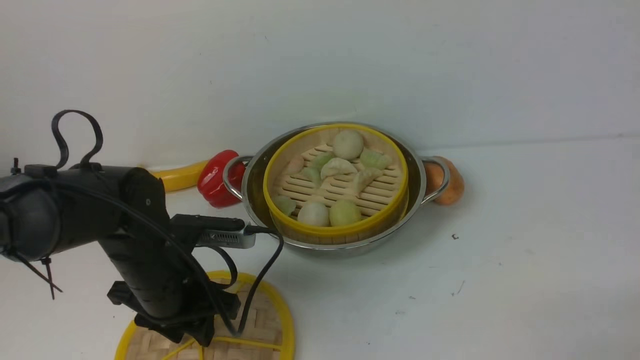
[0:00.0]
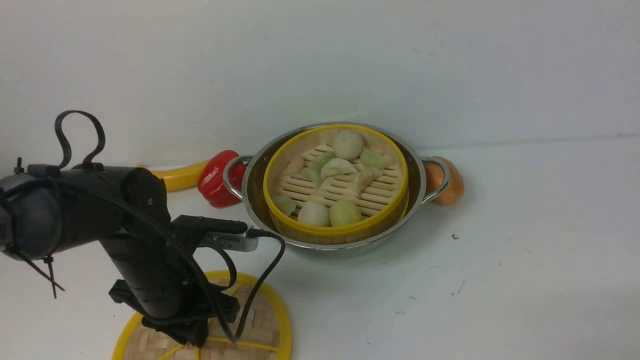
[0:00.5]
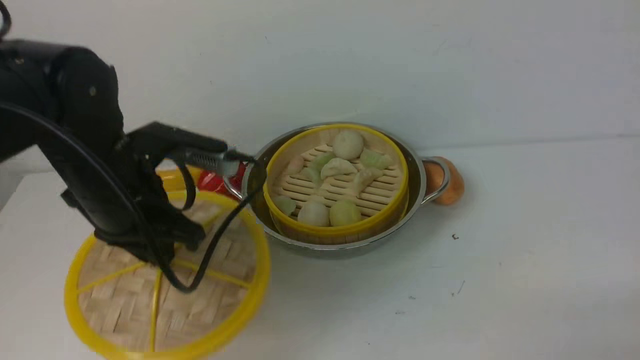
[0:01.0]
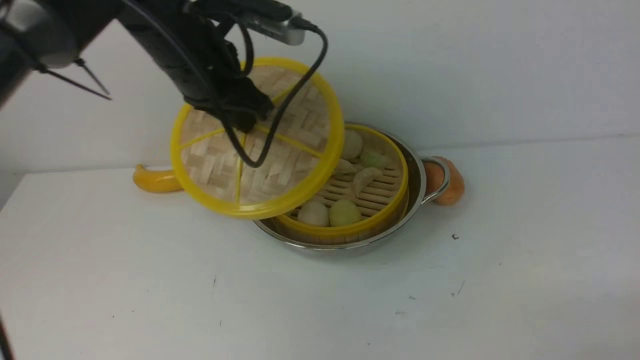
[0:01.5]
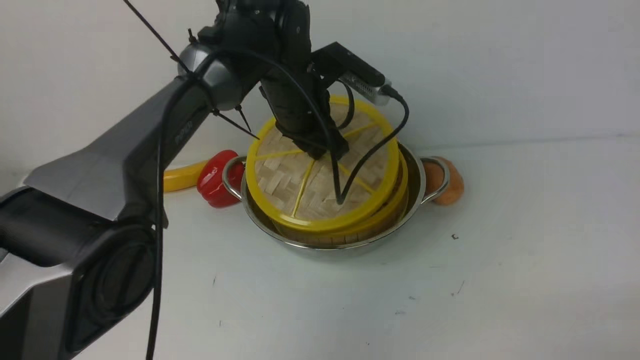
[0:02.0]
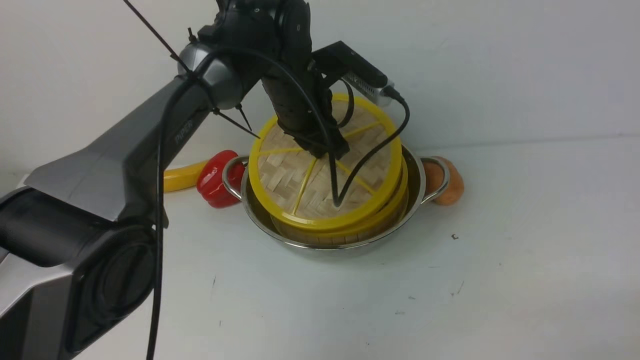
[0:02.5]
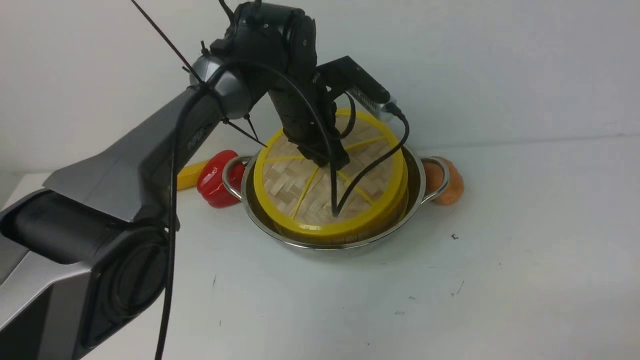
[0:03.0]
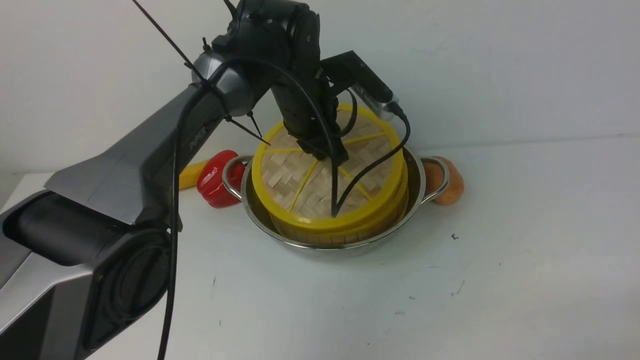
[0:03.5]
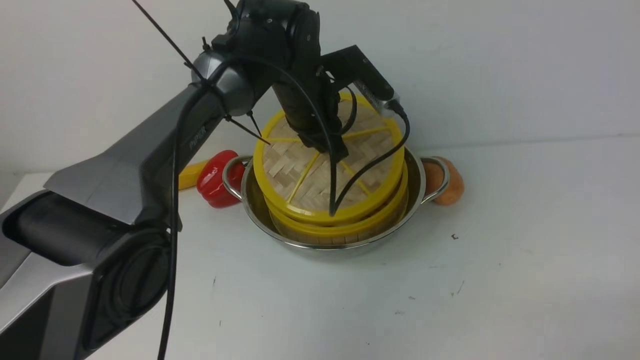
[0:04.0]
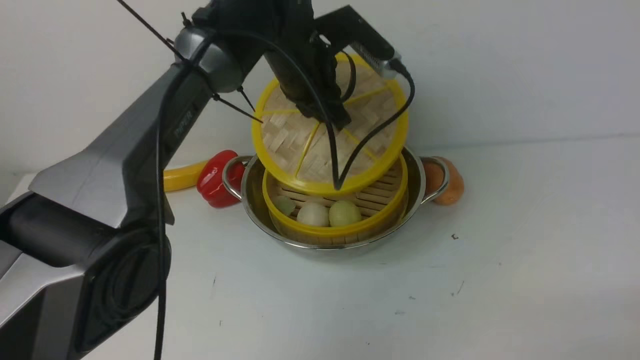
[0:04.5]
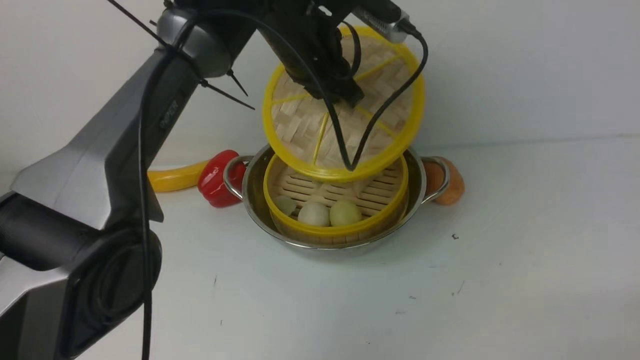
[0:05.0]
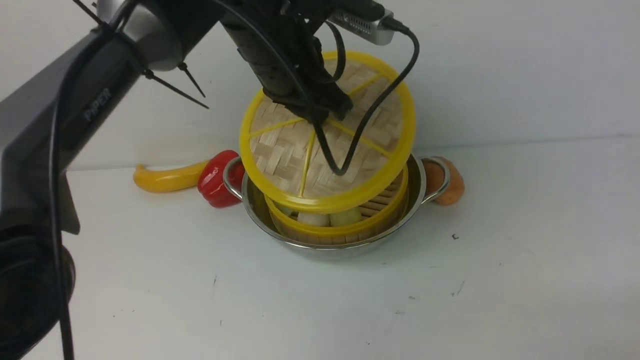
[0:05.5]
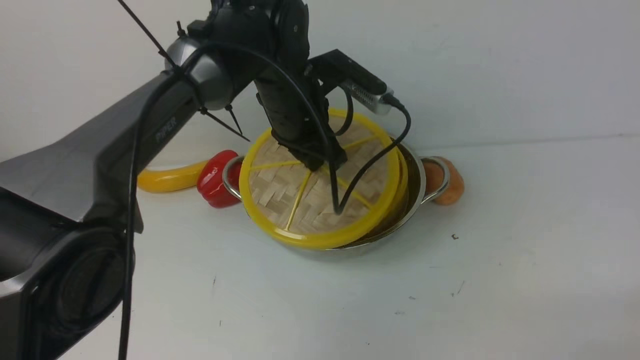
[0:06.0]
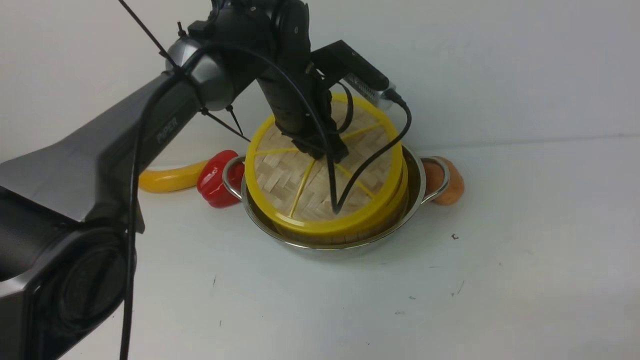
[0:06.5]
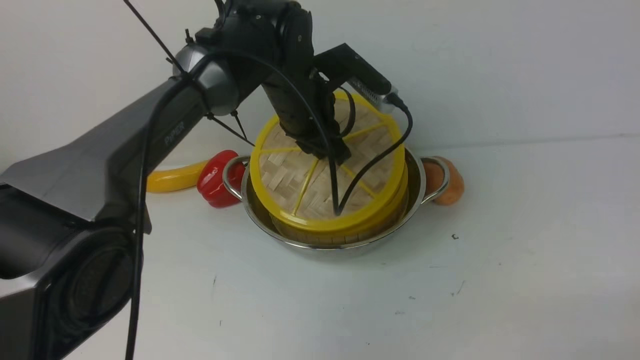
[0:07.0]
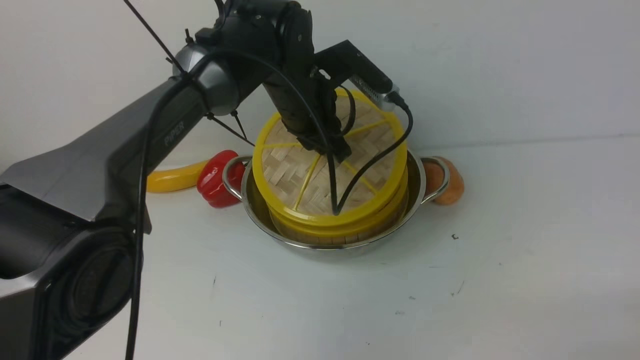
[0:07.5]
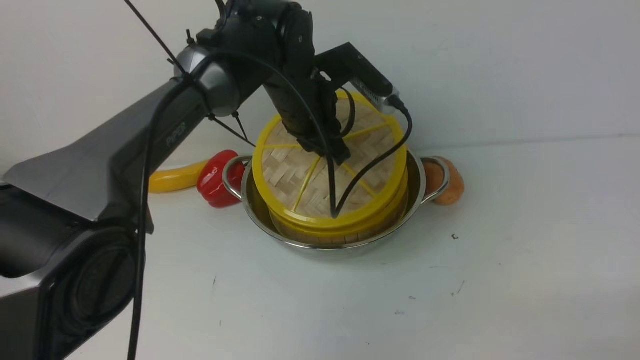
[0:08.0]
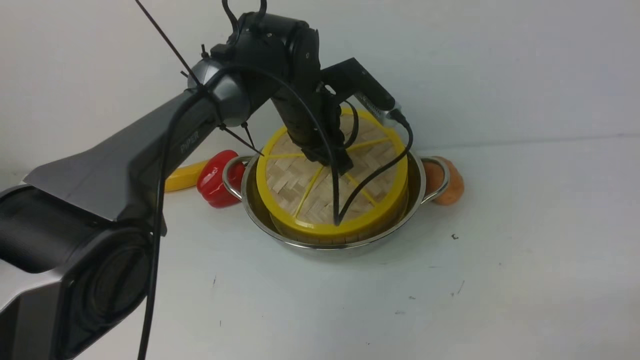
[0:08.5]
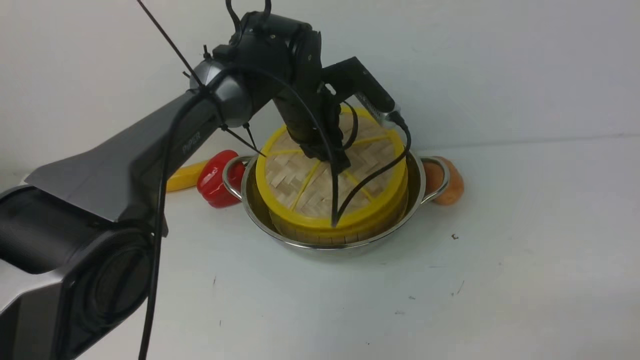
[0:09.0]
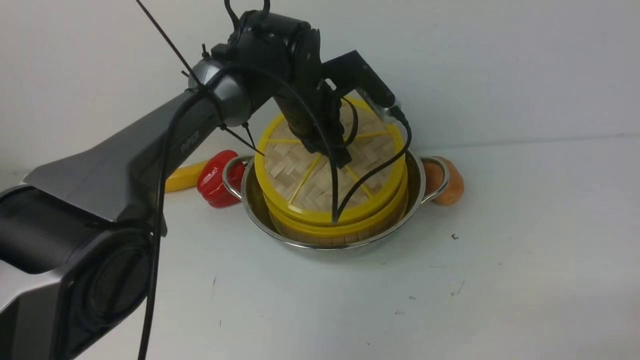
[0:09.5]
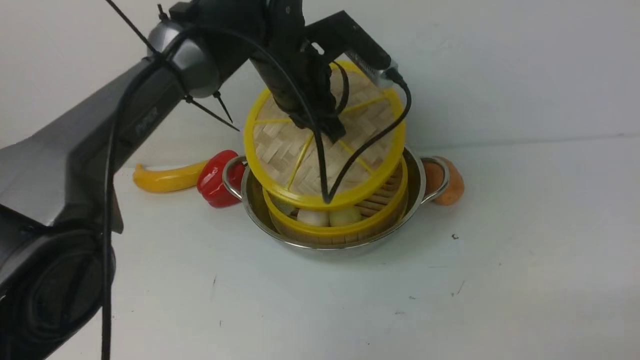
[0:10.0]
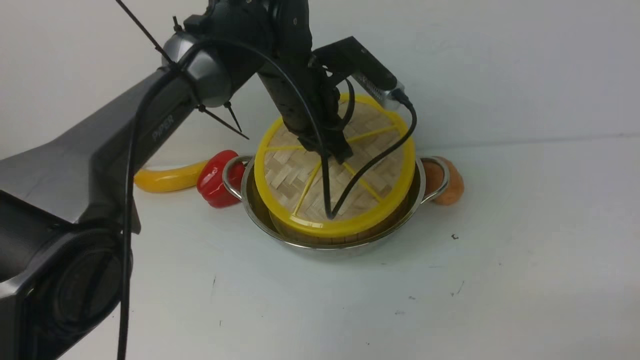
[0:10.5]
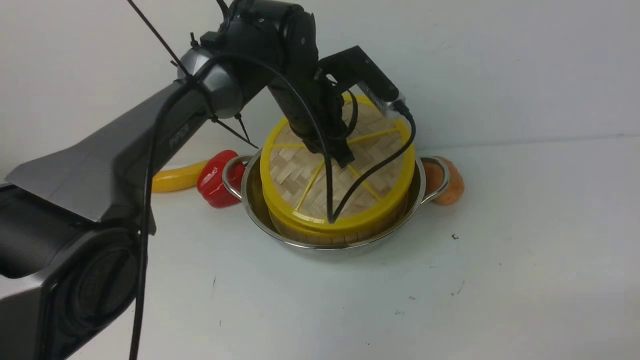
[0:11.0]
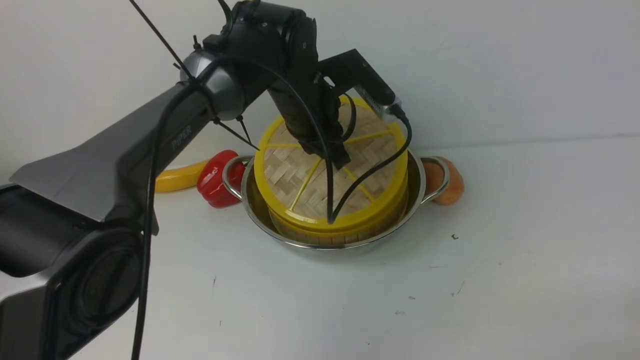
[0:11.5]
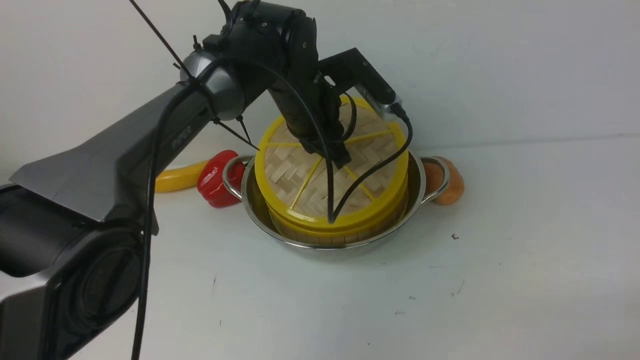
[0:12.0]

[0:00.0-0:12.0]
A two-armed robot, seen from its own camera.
Task of the whole recording: place the steamer in the pot on the white table, and put the lid on the steamer.
0:00.0 to 0:02.0: The left gripper goes some 25 cm forward, to the right and upward, and closes.
0:02.0 to 0:04.0: The grippers stay close to where they were, moving slightly.
0:04.0 to 0:06.0: The left gripper travels upward and back again, some 10 cm each way.
0:06.0 to 0:08.0: The grippers stay close to where they were, moving slightly.

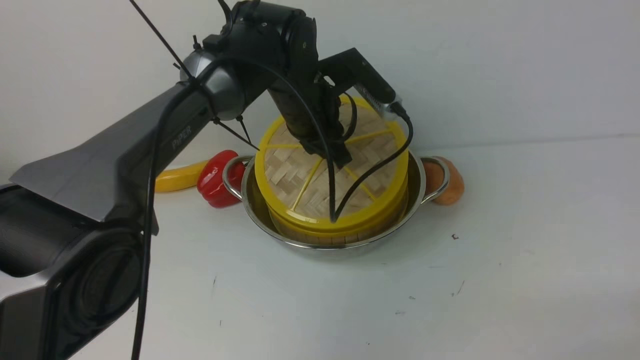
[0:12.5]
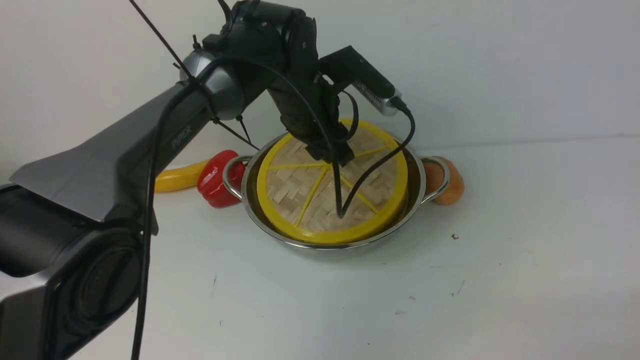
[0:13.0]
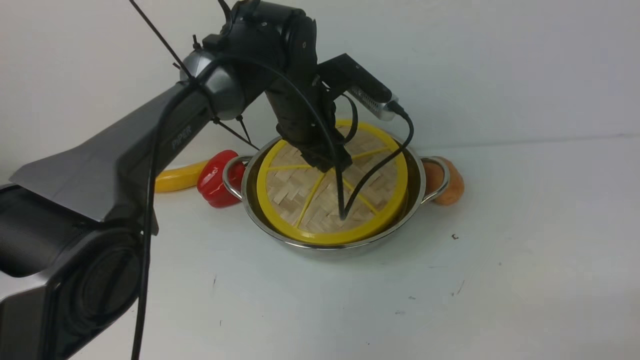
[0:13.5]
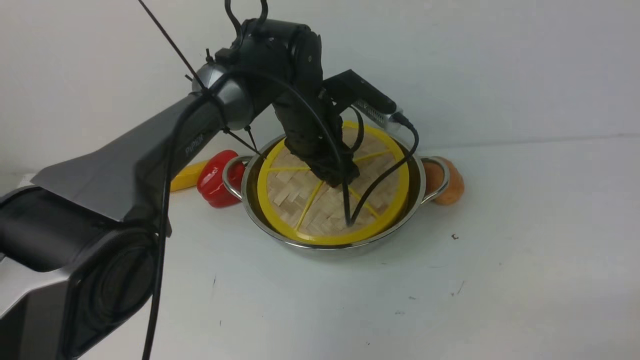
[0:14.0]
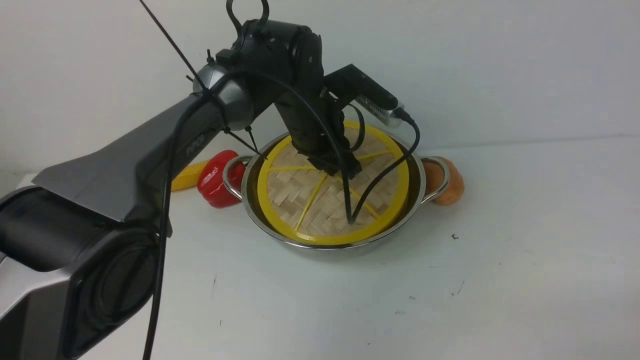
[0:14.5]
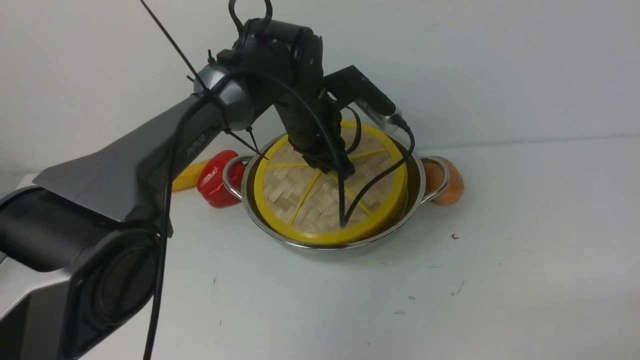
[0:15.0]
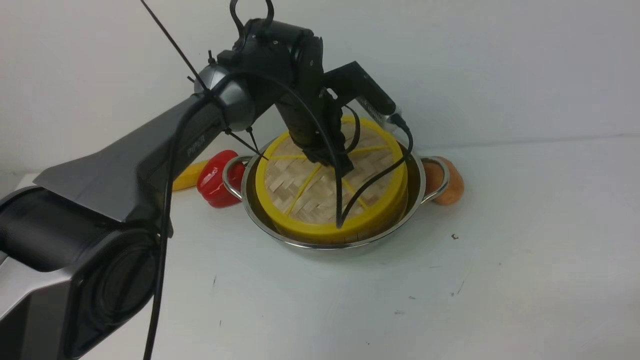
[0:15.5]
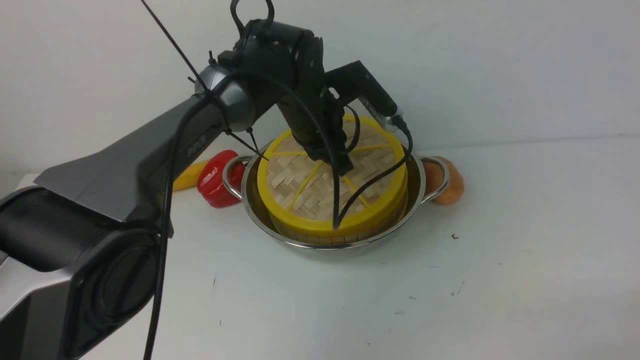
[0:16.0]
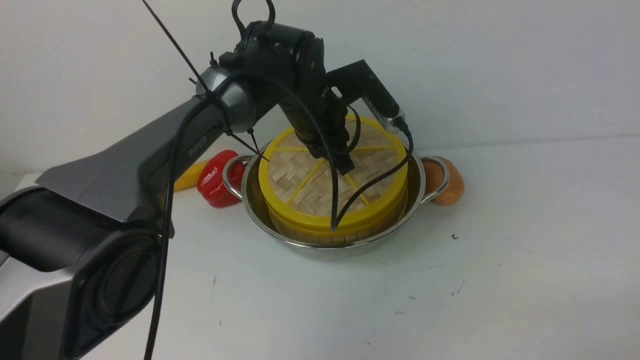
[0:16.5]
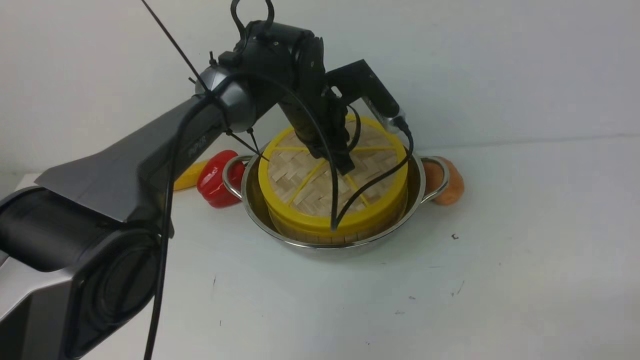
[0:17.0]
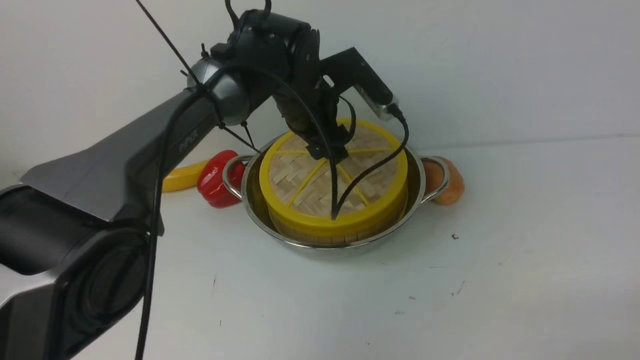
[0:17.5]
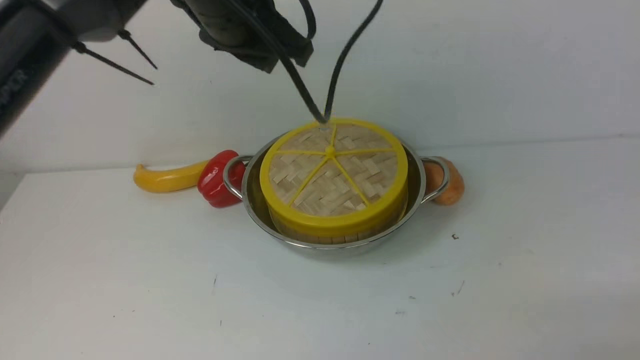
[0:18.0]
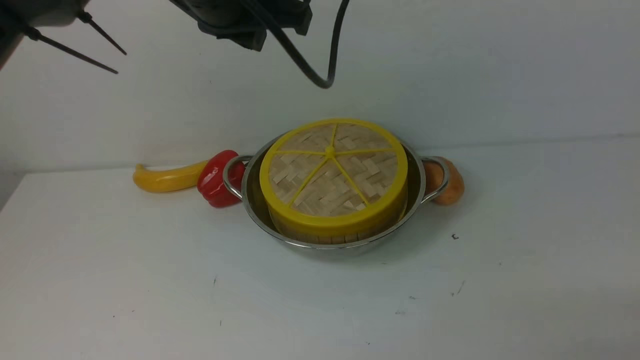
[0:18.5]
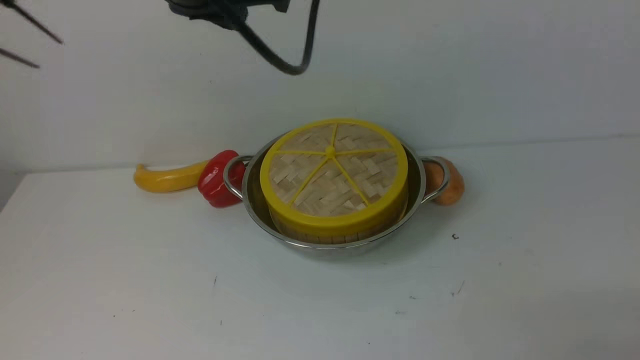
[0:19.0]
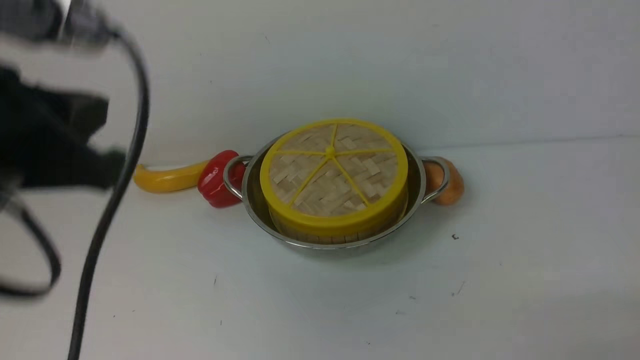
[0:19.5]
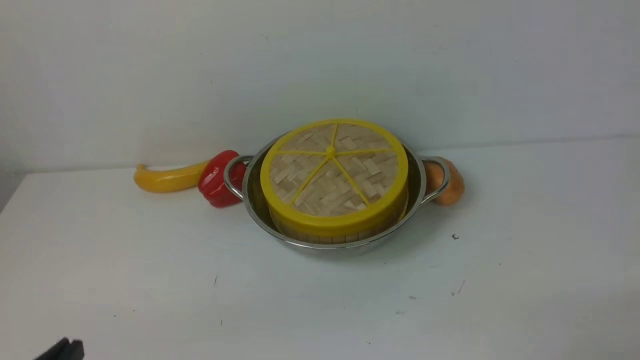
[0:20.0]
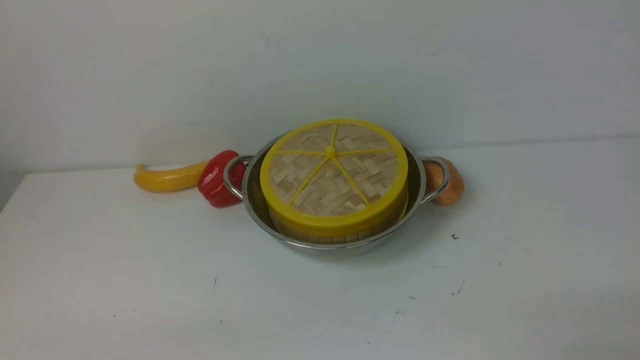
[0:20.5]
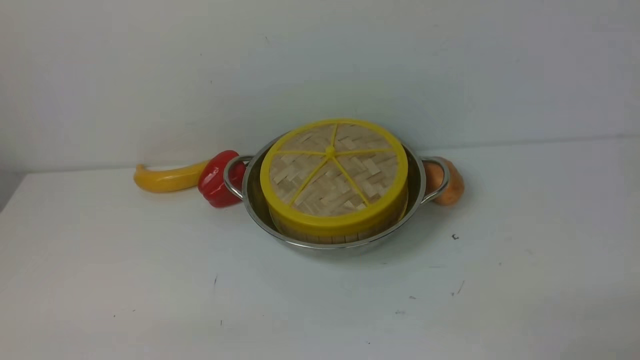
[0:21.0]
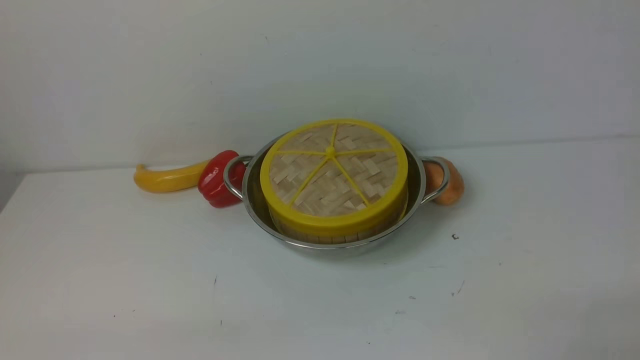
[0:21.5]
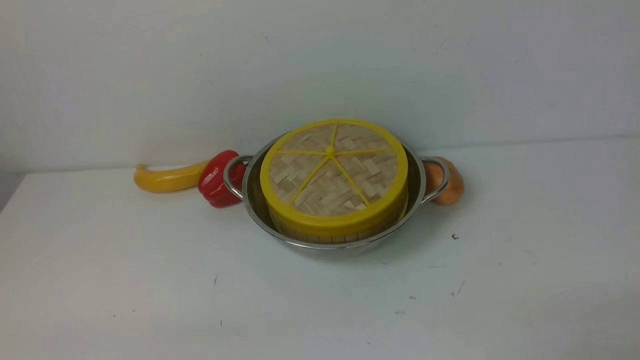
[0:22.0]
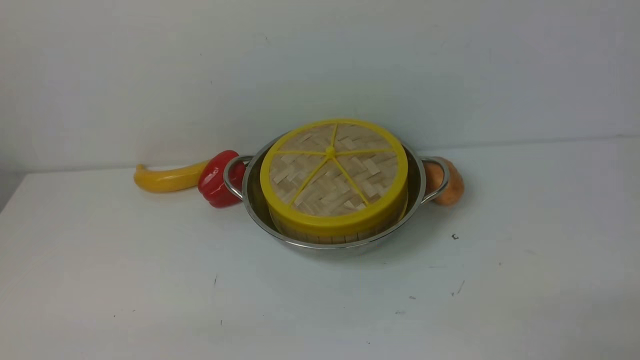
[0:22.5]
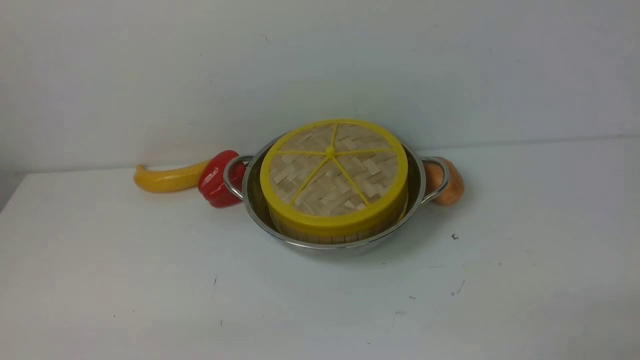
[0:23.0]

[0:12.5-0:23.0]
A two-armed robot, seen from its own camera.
Task of the whole recording: place the steamer in the pot on the white table, and put the lid on the steamer.
Step, 0:12.5 to 0:19.5: use the left arm to place the steamer lid on the steamer.
0:12.5 to 0:14.5: The left gripper opens, then closes once more.
0:14.5 to 0:16.5: The grippers stay close to where they were, moving slightly.
0:16.5 to 0:19.0: The left gripper is displaced upward and backward by about 25 cm, and opens, then closes once more.
0:19.0 to 0:21.0: The left gripper moves backward, downward and to the left, about 40 cm.
0:21.0 to 0:23.0: Neither gripper changes place.
